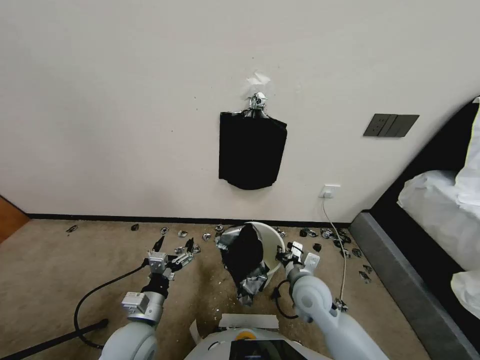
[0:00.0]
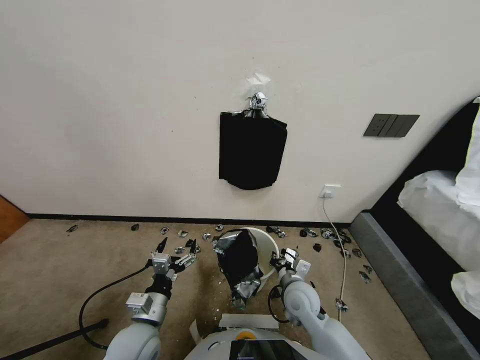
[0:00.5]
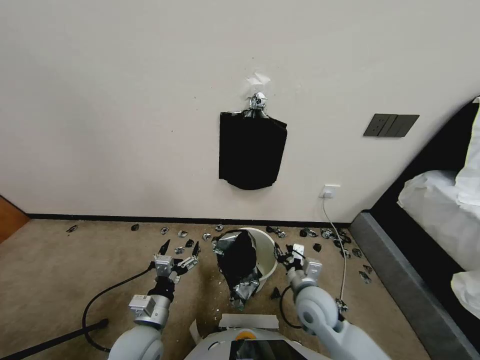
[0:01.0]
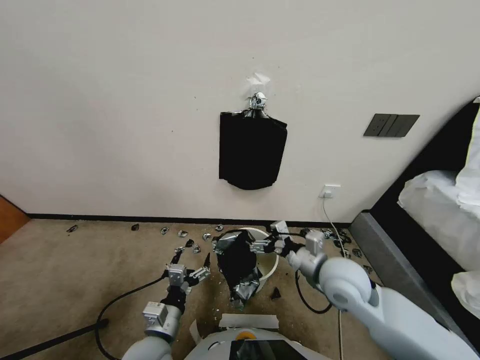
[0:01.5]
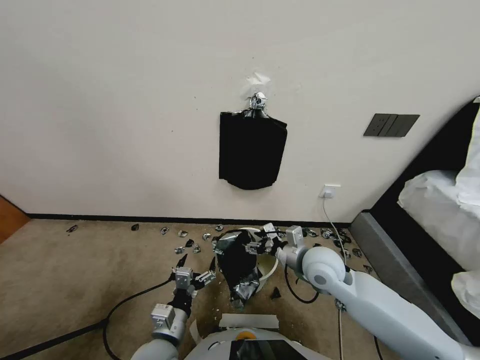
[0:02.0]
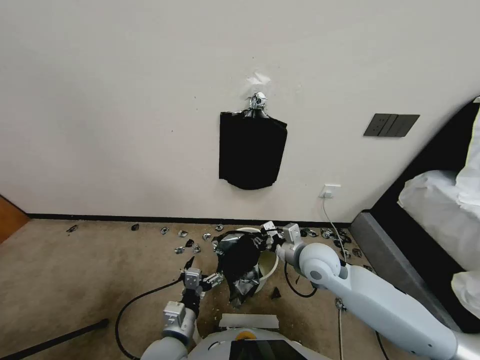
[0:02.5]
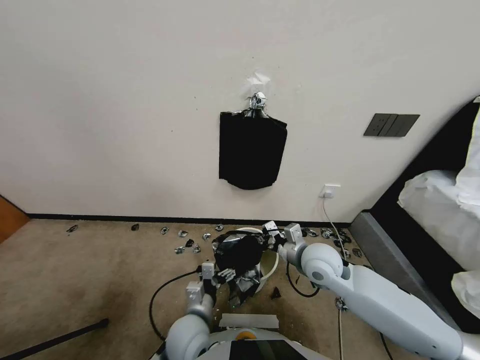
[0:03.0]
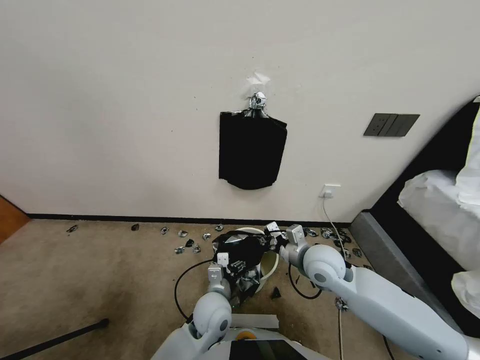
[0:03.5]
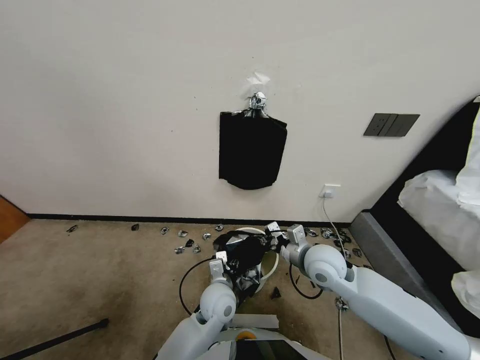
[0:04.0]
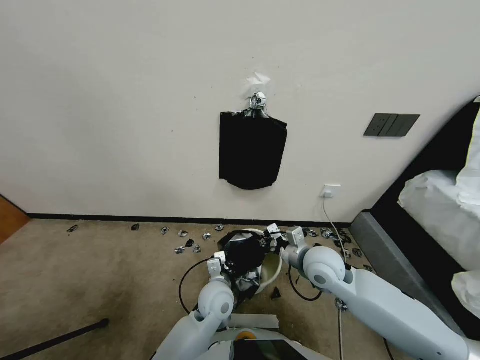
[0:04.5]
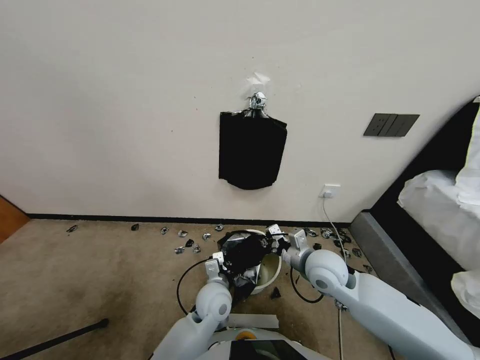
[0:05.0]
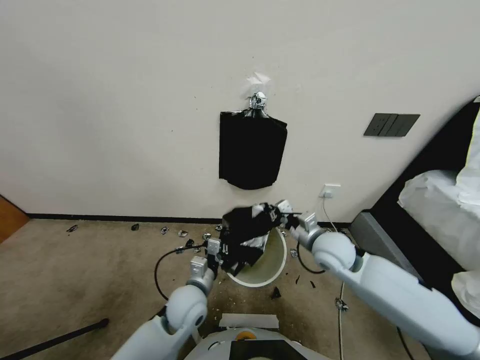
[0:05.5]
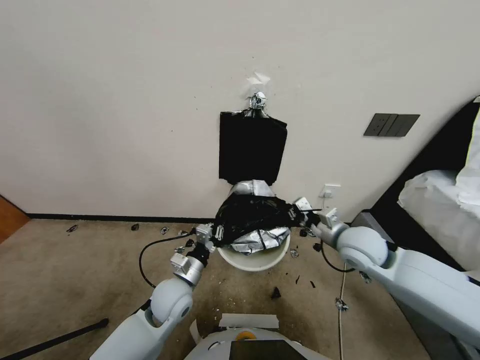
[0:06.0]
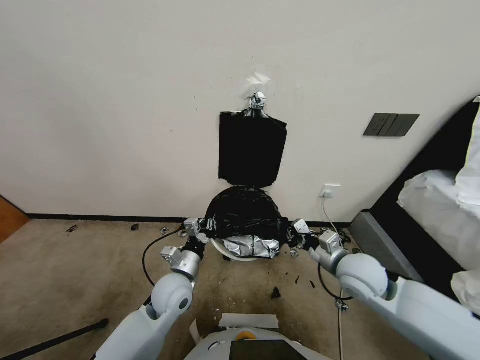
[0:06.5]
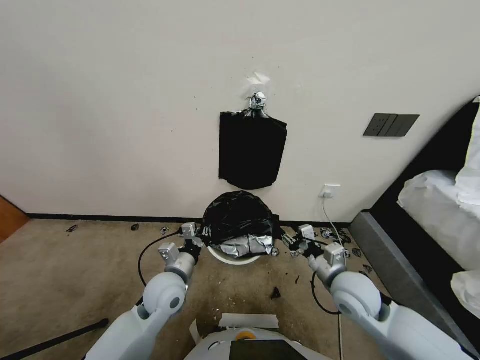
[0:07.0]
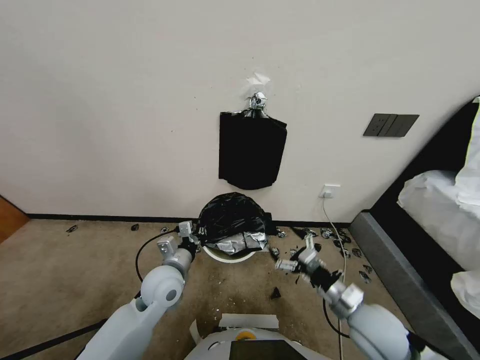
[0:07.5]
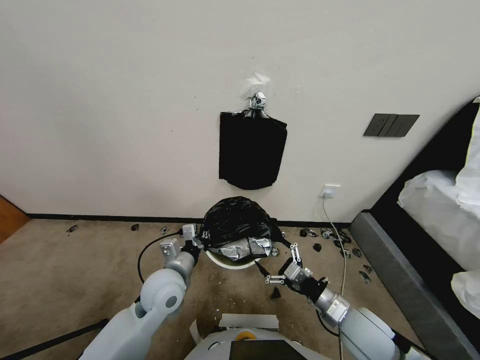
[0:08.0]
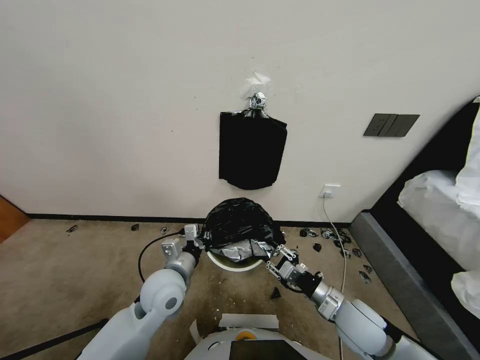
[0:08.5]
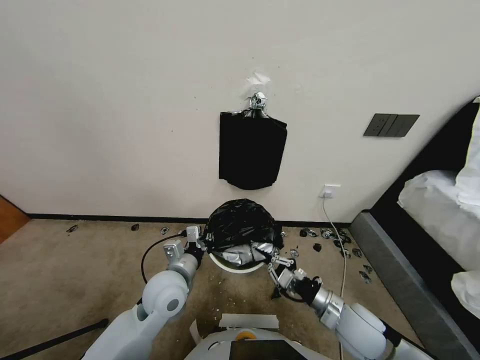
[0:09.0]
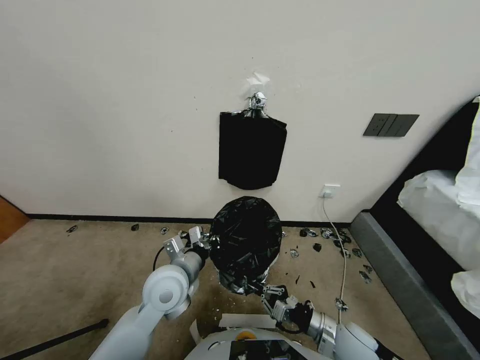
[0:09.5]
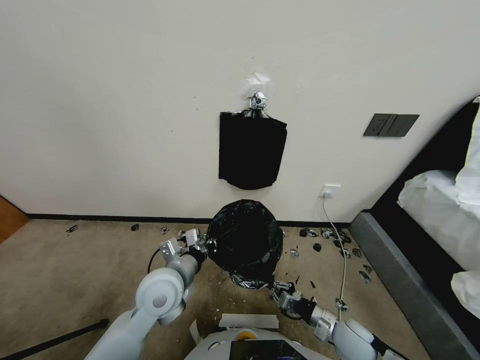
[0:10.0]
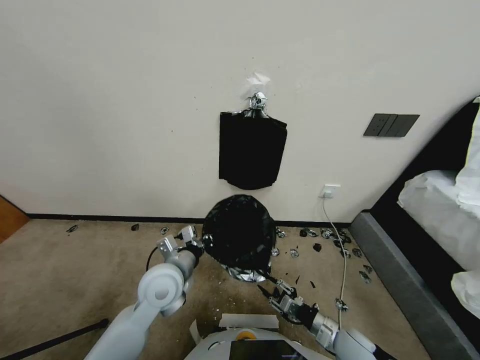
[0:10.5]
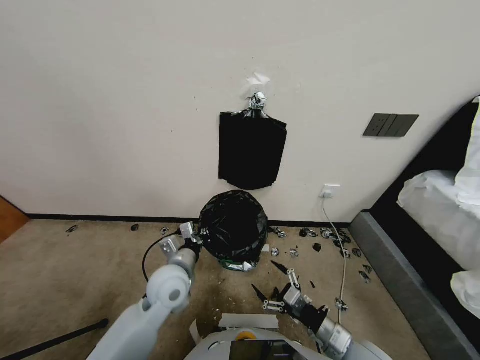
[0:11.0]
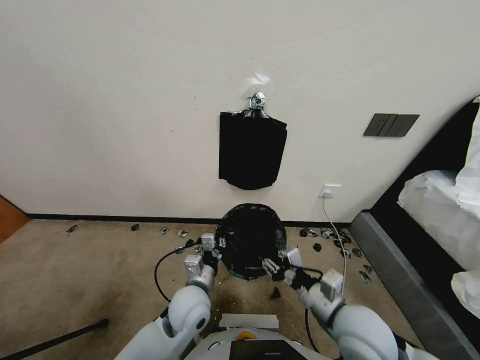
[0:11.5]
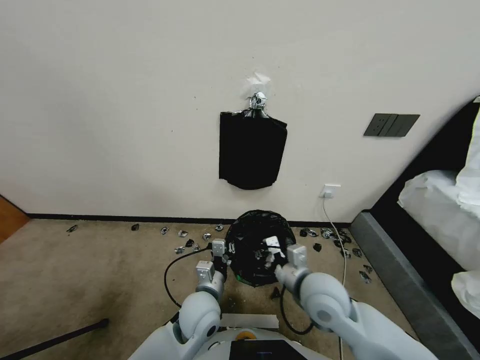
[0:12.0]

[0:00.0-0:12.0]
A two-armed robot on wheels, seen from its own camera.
Task of the whole recording: Place a trash bag onto the trash bin.
0:00.0 to 0:02.0: The right gripper is displaced upward by about 10 cm, and opens its fingers. Meanwhile the left gripper is displaced to the right by some 5 cm.
0:02.0 to 0:04.0: The right gripper closes. The left gripper heads forward and to the right, covering some 15 cm, and closes.
0:04.0 to 0:06.0: The right gripper is displaced to the right by about 10 cm. Meanwhile the left gripper shifts approximately 10 cm to the left, and closes up.
0:06.0 to 0:08.0: The right gripper shifts some 15 cm backward and downward, and opens up.
0:08.0 to 0:10.0: The right gripper is displaced downward by some 10 cm, and closes up.
0:10.0 to 0:12.0: The left gripper moves downward and to the right, some 10 cm. Meanwhile the right gripper shifts some 20 cm upward, to the left and forward, and opens, then closes once more.

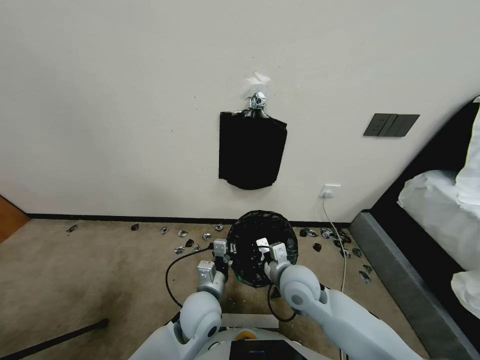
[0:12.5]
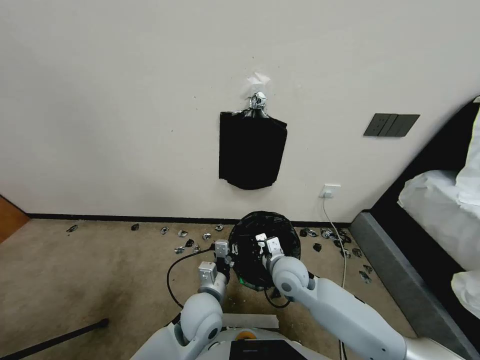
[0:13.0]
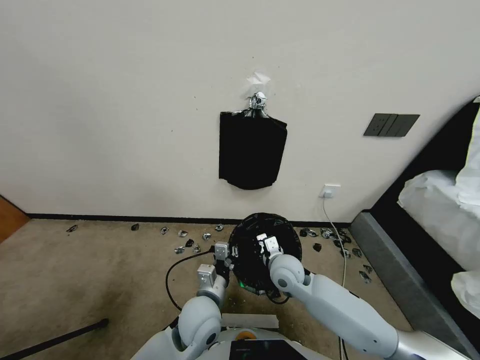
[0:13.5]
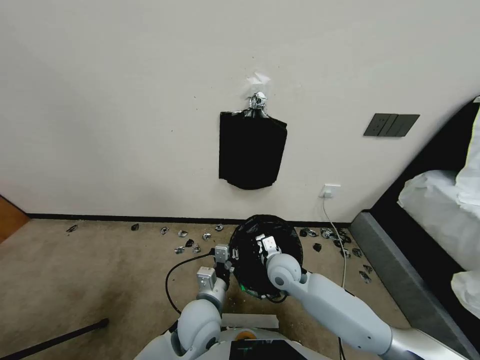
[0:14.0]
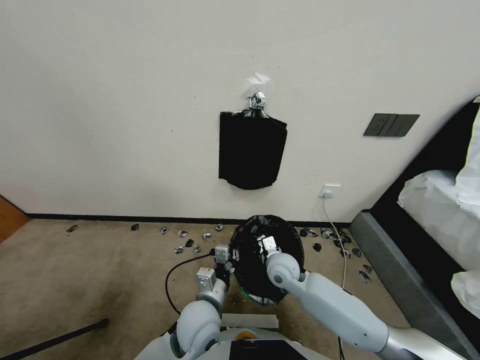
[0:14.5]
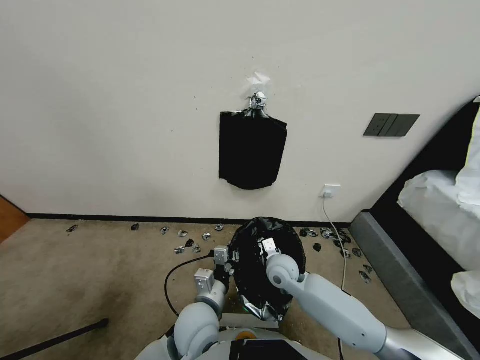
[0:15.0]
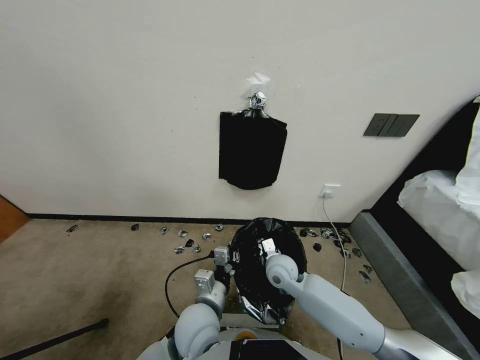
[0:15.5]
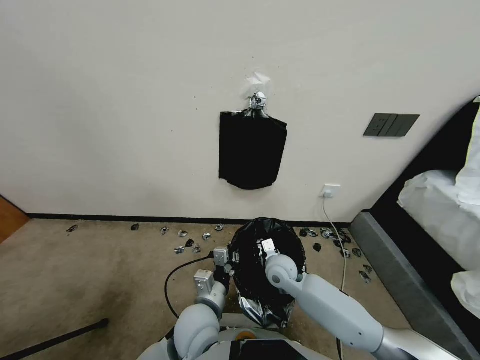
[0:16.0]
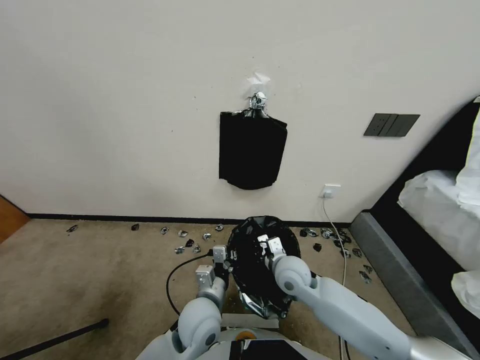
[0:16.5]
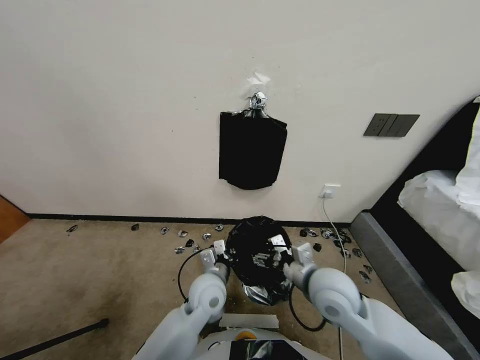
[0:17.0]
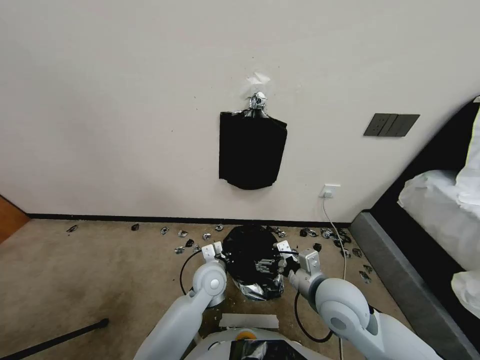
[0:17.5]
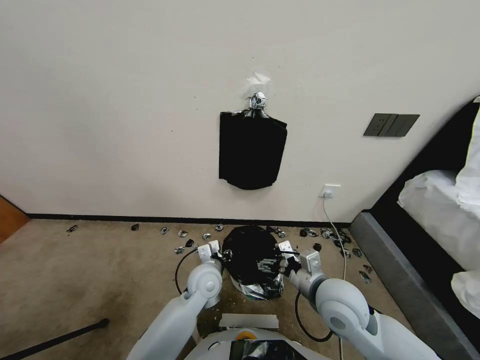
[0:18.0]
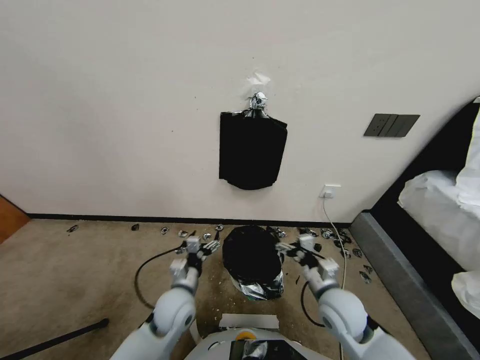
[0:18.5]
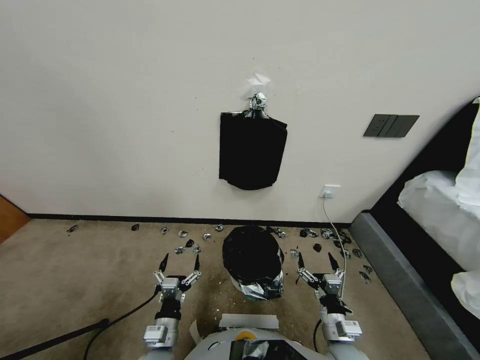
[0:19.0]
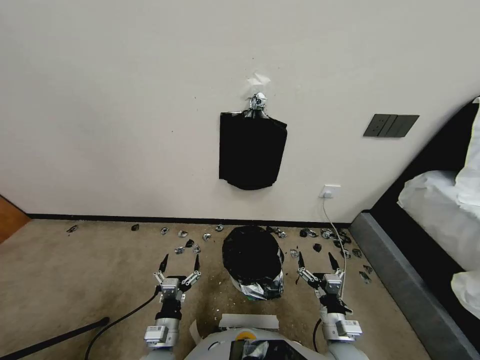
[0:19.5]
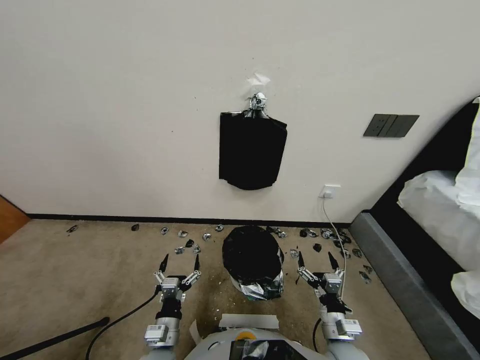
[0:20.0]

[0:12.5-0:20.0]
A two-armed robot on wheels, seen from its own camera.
Task of the whole recording: Place a trash bag onto the trash bin.
0:12.5 to 0:14.5: The right gripper moves forward, roughly 5 cm.
0:14.5 to 0:16.5: The right gripper shifts by some 5 cm, and opens up.
0:16.5 to 0:18.0: The right gripper goes about 10 cm backward and to the right, and opens its fingers. The left gripper shifts roughly 5 cm forward, and opens its fingers.
0:18.0 to 0:20.0: The right gripper moves downward and backward, about 20 cm. The left gripper goes roughly 20 cm backward, to the left and downward, and opens its fingers.
